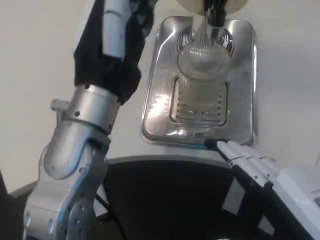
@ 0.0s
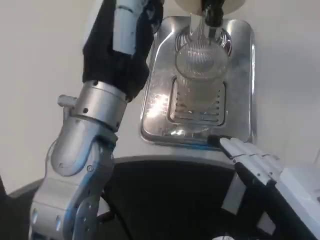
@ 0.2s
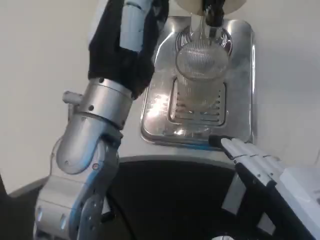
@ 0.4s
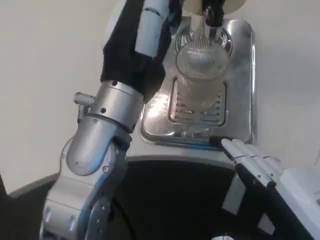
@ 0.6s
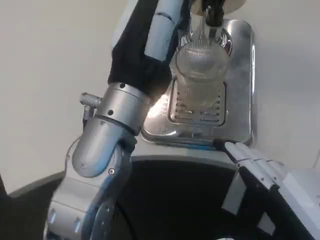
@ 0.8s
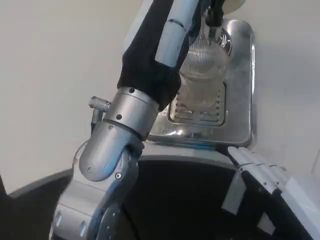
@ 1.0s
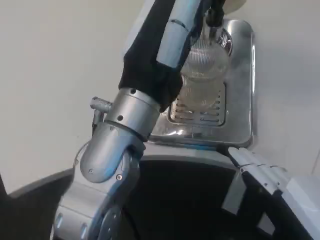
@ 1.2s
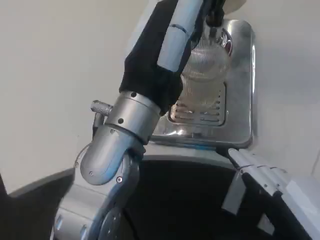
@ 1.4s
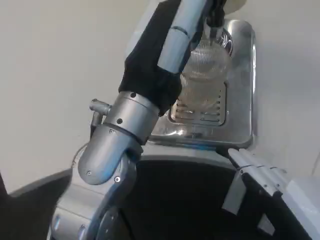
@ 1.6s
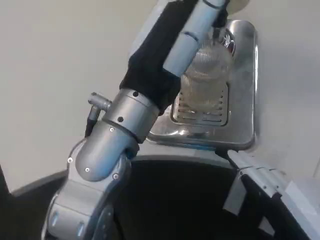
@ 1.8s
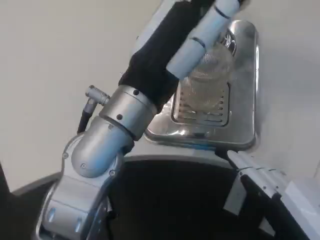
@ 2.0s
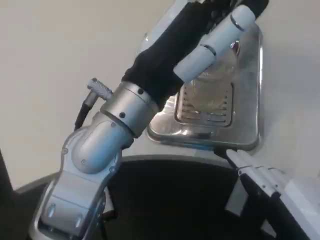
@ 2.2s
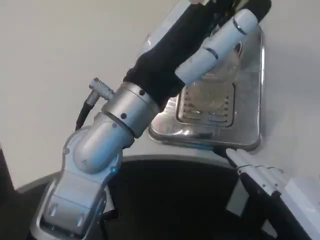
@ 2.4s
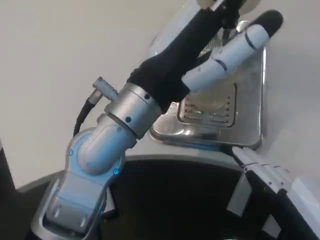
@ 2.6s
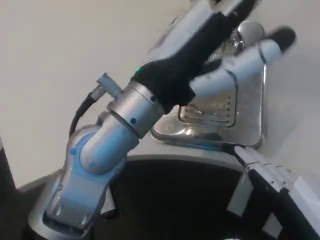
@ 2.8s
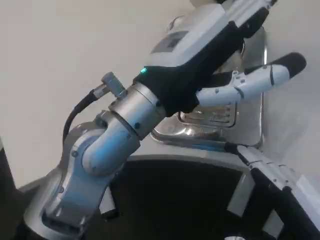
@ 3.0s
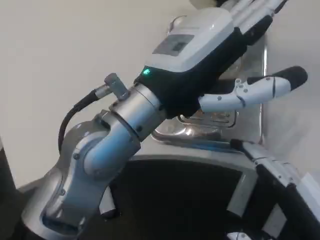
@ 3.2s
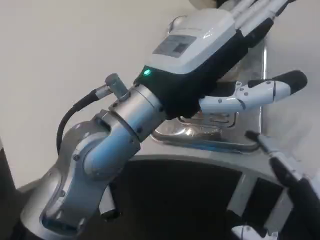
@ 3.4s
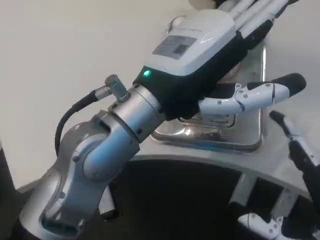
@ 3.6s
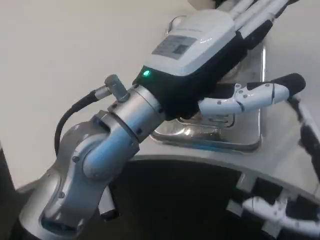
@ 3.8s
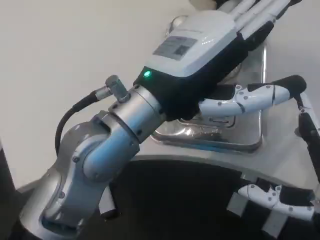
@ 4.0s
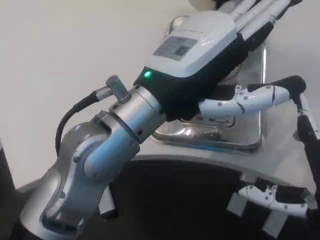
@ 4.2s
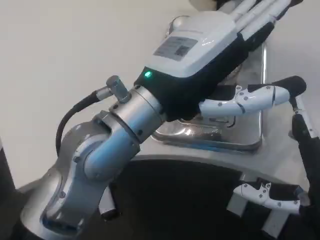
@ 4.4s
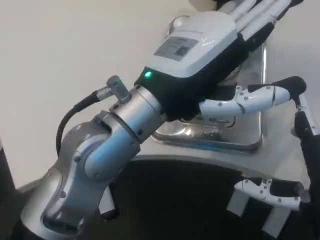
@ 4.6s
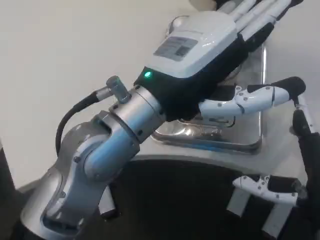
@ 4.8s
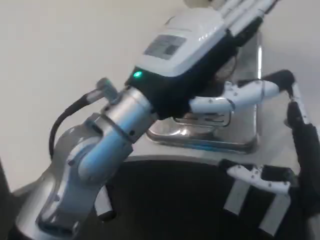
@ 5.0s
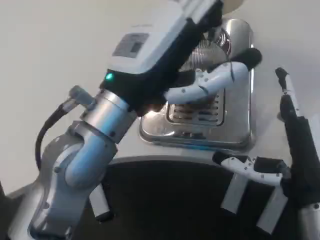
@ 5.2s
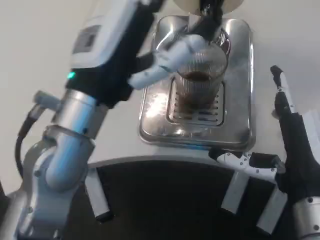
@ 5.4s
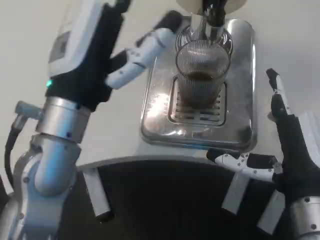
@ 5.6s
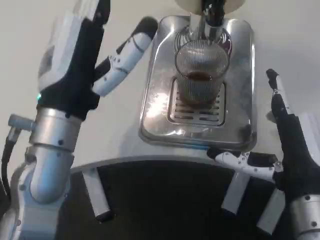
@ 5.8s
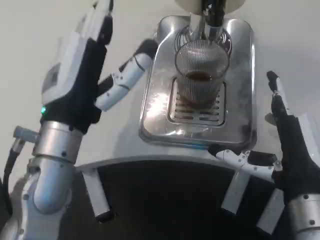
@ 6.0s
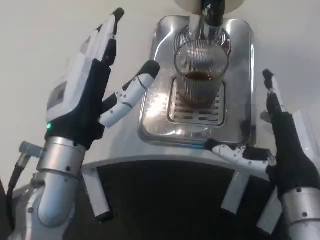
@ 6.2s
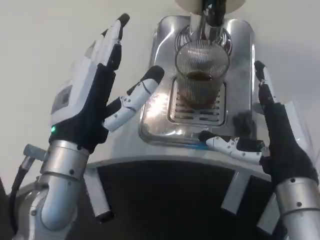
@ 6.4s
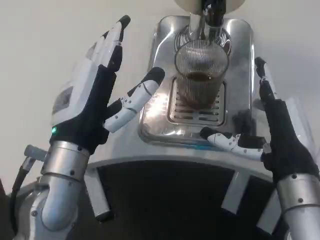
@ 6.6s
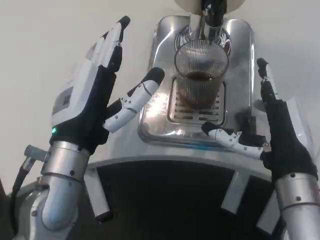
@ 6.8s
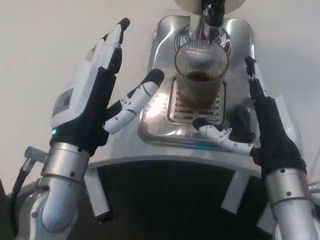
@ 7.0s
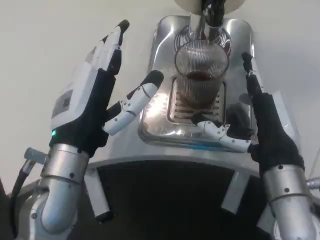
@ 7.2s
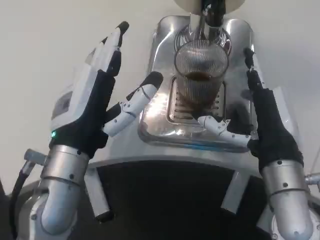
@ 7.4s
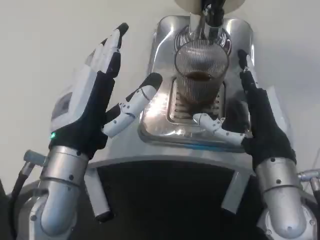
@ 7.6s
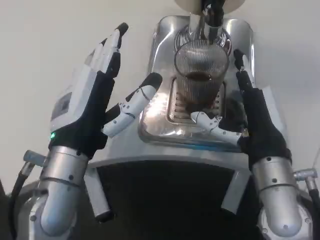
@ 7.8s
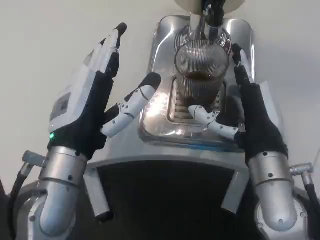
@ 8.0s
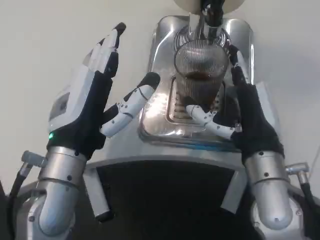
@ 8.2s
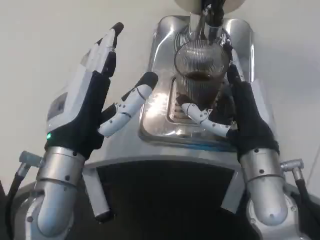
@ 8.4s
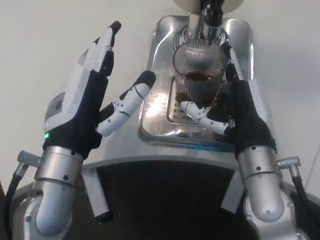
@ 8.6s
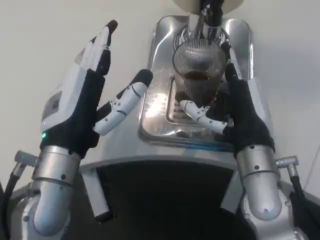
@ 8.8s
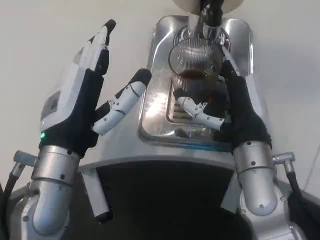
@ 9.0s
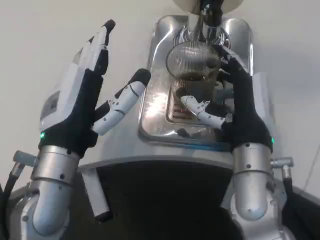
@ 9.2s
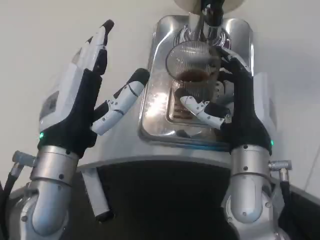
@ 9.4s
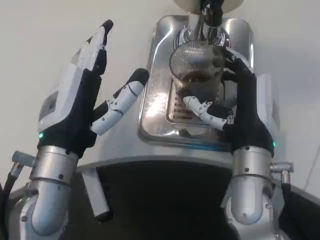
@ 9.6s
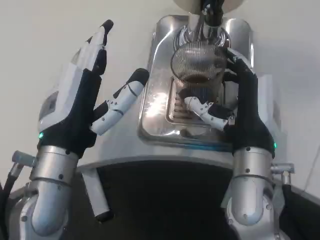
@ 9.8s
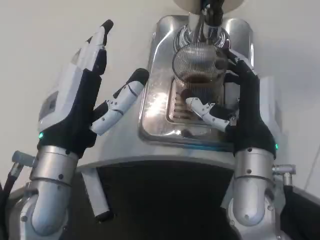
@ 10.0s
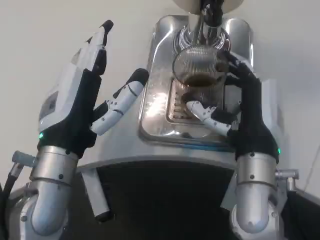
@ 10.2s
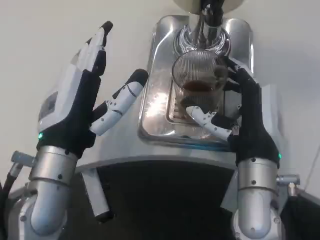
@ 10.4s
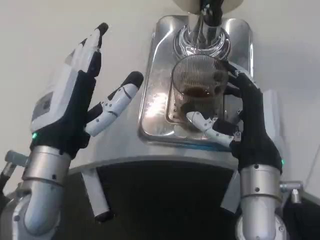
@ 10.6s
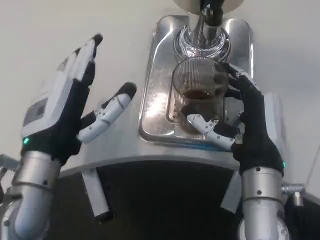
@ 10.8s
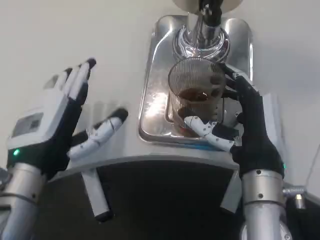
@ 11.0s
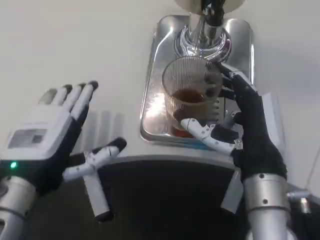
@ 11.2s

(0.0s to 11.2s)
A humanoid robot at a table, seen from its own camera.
Task of the whole recording: Grasp the cup under the faucet to collect the drink, then remove the cup.
3.2s - 4.8s: The right hand travels forward by about 5 cm.
4.8s - 6.4s: The right hand travels forward by roughly 5 cm, while the left hand heads downward and to the left, covering some 10 cm.
9.6s - 11.2s: The left hand shifts by about 5 cm.

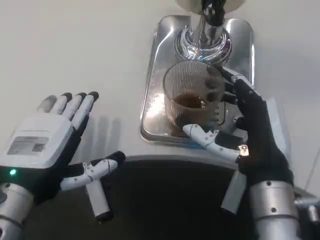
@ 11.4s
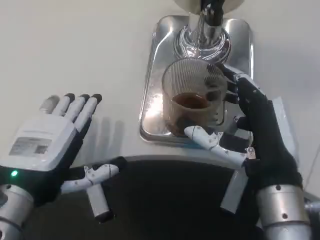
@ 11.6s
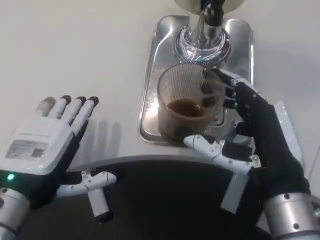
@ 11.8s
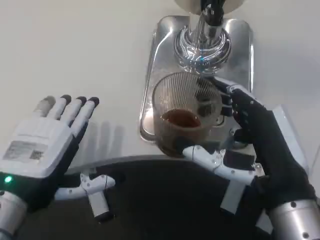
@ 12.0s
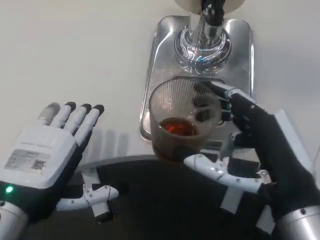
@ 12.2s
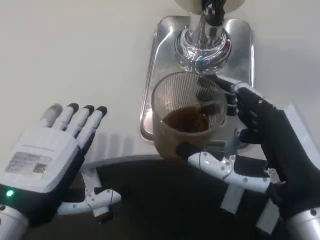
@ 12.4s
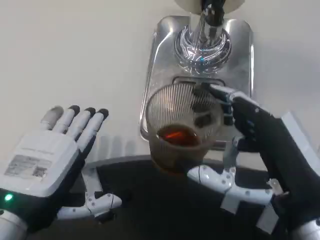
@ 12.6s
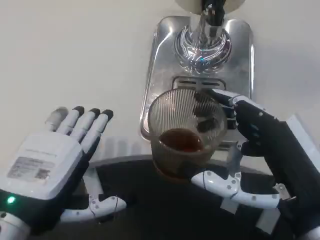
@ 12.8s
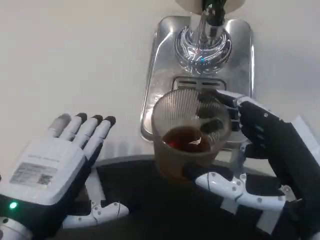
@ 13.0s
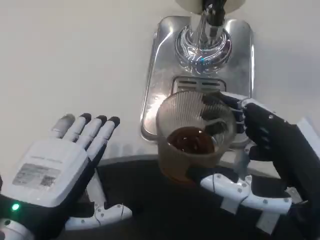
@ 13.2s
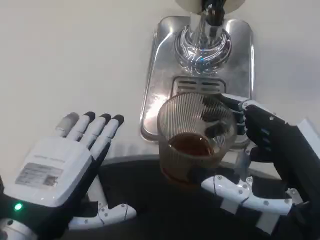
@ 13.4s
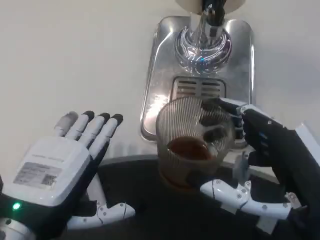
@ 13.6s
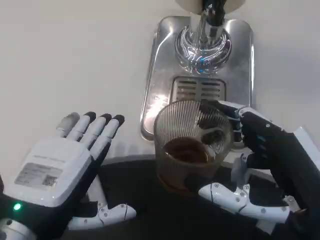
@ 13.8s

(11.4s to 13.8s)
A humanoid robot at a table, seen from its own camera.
Task of the whole recording: Grasp the cup under the faucet to collect the drink, then remove the cup.
11.4s - 12.6s: The right hand travels backward by approximately 5 cm.

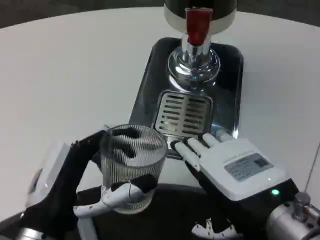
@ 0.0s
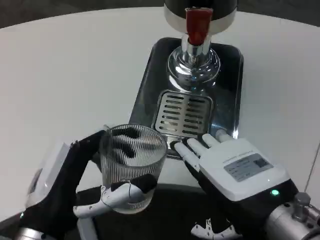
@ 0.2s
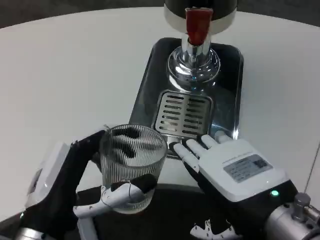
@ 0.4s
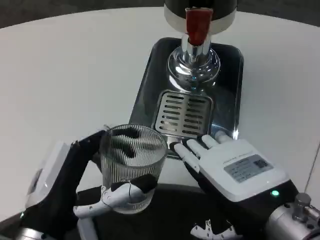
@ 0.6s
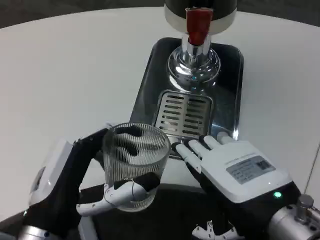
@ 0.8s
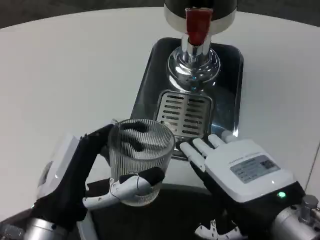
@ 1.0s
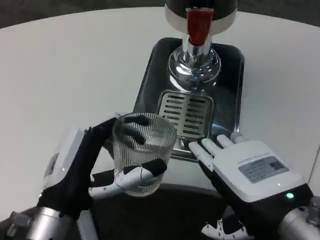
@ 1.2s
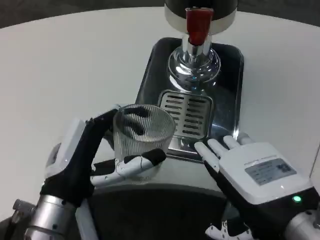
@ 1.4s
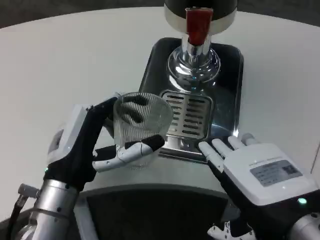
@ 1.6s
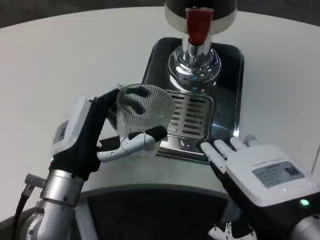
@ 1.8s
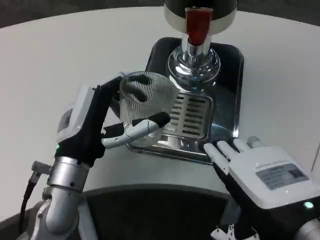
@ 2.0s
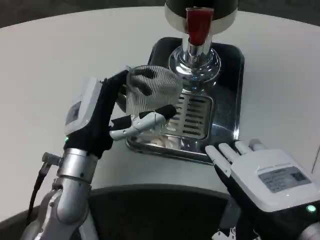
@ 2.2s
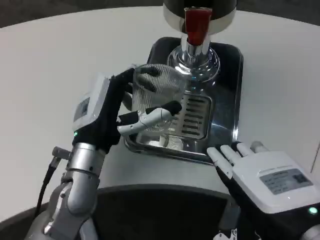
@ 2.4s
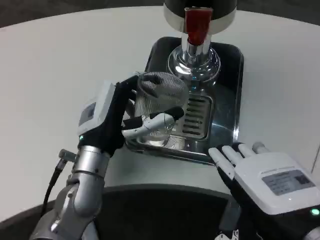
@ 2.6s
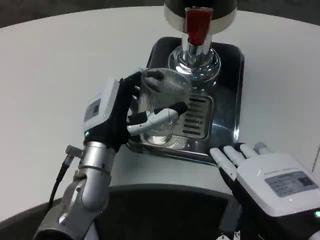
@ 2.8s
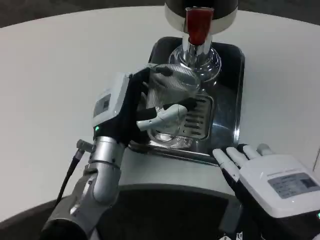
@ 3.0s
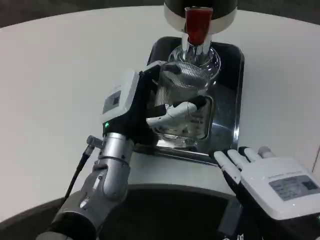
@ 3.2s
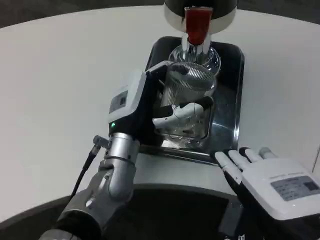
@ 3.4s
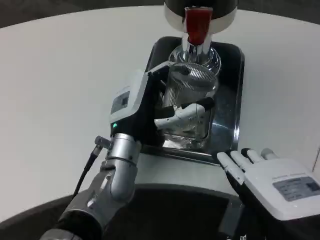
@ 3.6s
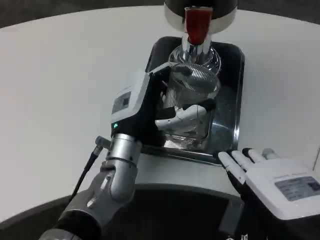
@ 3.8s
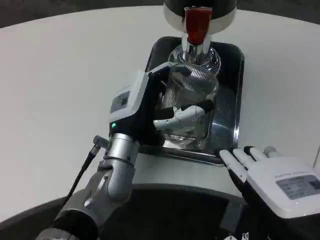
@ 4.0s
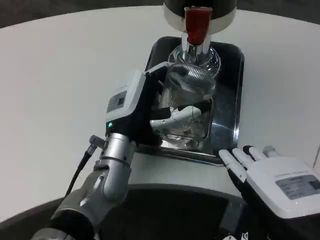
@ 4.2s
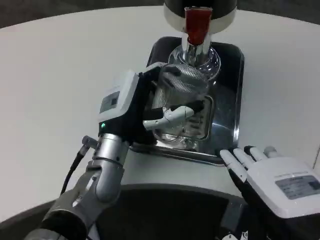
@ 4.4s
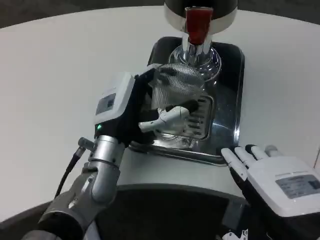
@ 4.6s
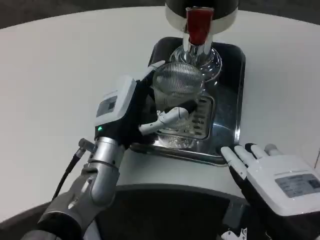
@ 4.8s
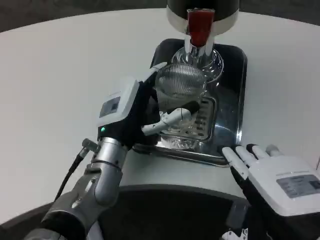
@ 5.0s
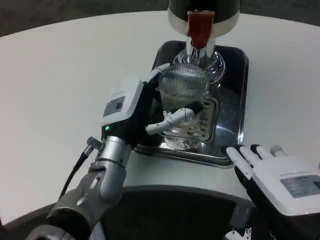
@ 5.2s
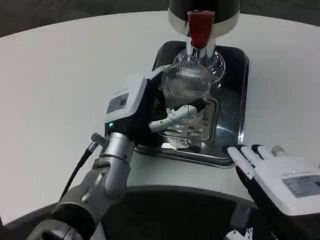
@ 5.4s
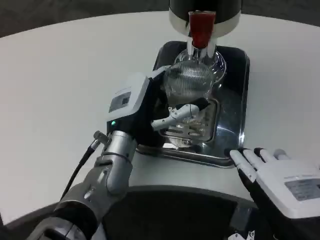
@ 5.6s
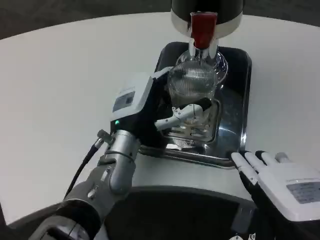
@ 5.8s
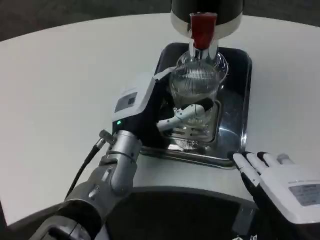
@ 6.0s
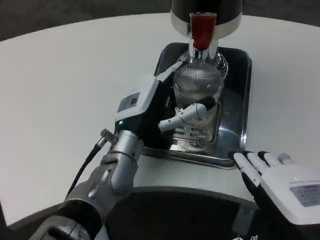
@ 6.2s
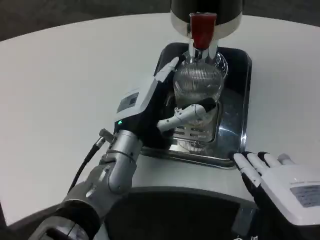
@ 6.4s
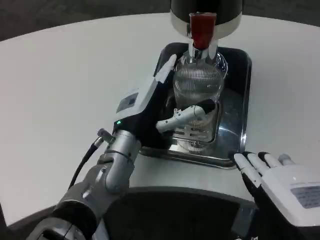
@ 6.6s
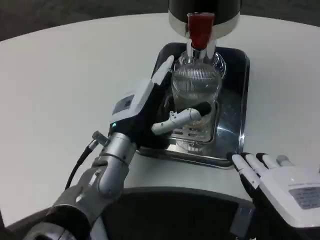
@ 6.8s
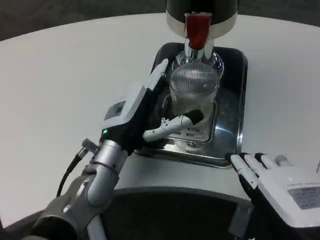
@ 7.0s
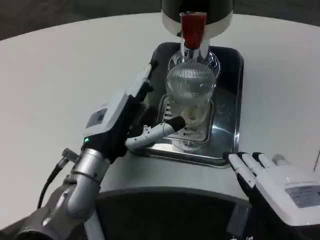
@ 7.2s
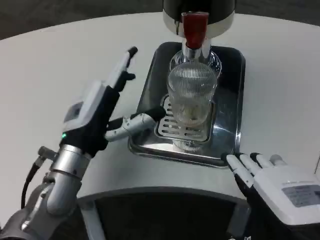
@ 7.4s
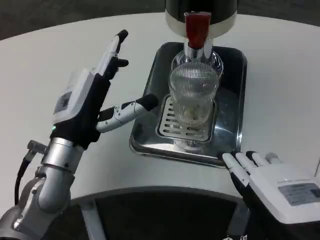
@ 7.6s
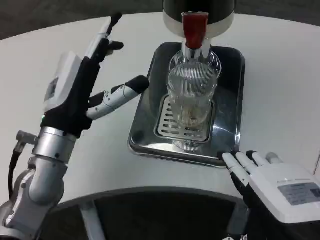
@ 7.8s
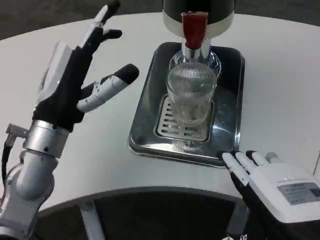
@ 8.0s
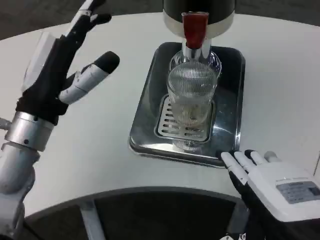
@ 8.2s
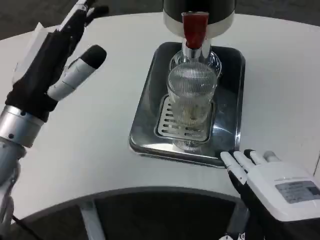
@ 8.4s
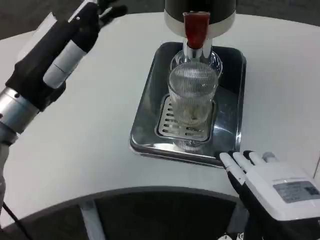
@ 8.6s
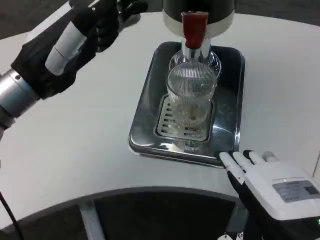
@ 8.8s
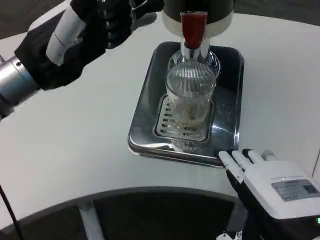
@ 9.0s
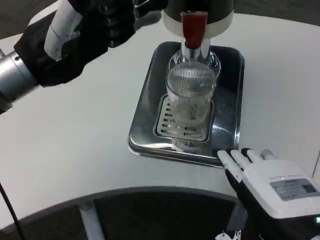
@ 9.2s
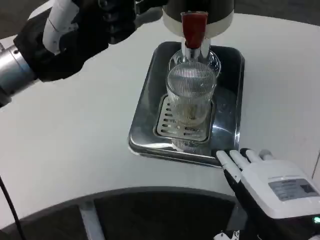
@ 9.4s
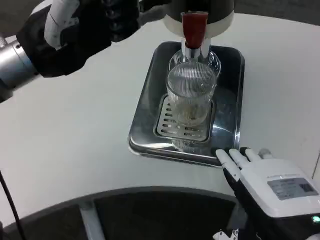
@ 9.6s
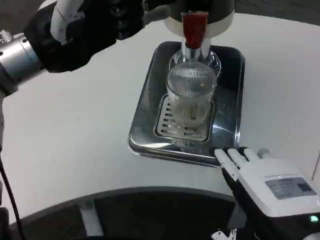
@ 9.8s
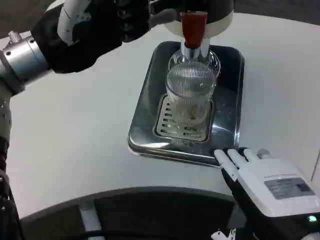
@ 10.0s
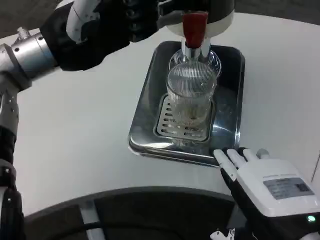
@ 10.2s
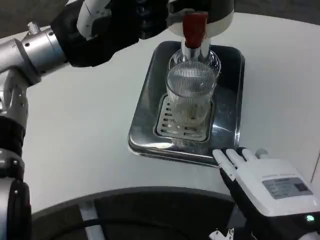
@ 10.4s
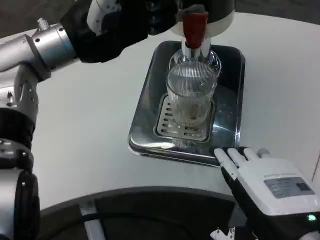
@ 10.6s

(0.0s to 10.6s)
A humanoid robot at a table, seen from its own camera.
Task of the whole recording: Grasp the cup under the faucet to collect the drink, then remove the cup.
0.0s - 1.6s: The left hand is displaced forward by about 5 cm.
1.6s - 3.0s: The left hand heads forward and to the right, covering approximately 10 cm.
3.0s - 4.6s: There are only small adjustments of the hands.
6.0s - 7.6s: The left hand goes about 10 cm to the left.
7.6s - 9.0s: The left hand goes some 15 cm upward and to the left.
9.0s - 10.6s: The left hand changes place by about 5 cm.
